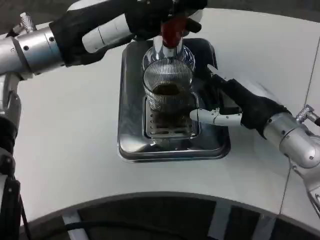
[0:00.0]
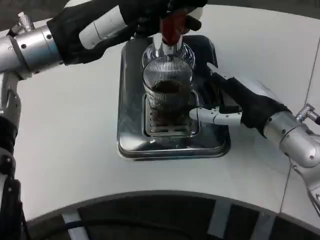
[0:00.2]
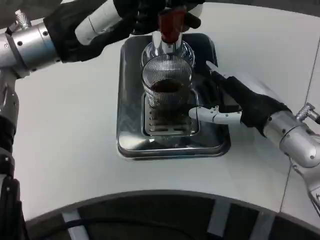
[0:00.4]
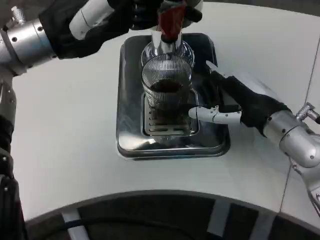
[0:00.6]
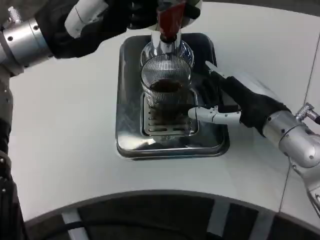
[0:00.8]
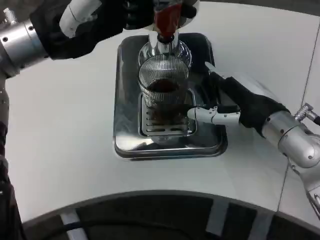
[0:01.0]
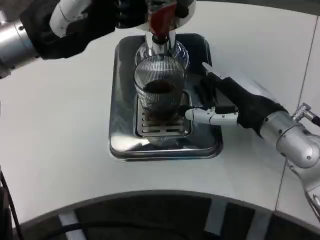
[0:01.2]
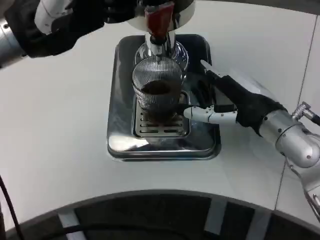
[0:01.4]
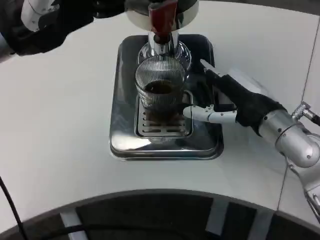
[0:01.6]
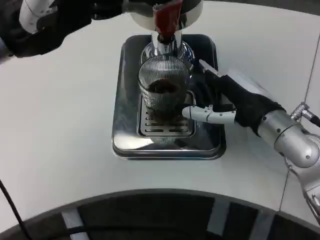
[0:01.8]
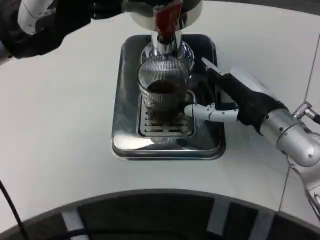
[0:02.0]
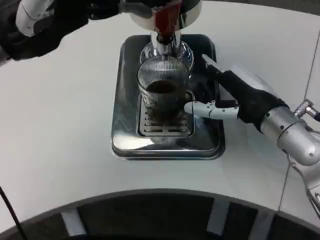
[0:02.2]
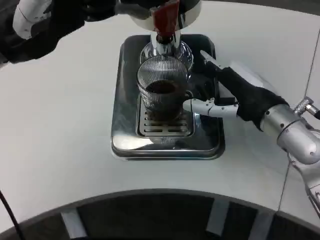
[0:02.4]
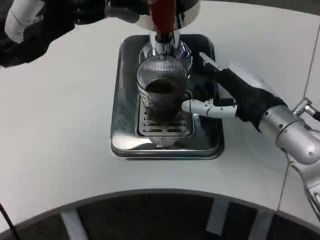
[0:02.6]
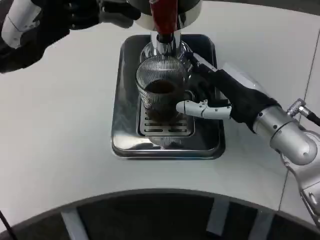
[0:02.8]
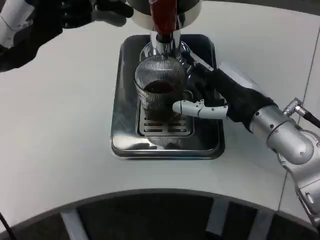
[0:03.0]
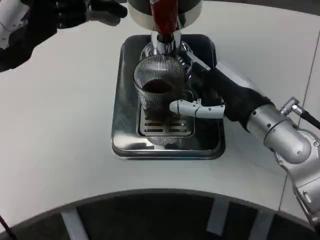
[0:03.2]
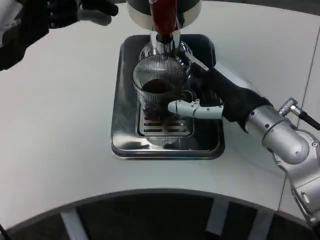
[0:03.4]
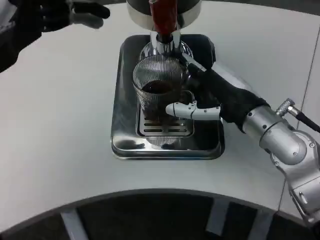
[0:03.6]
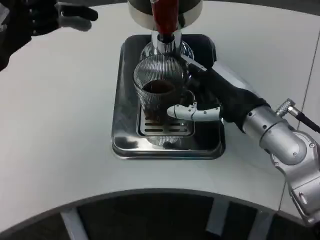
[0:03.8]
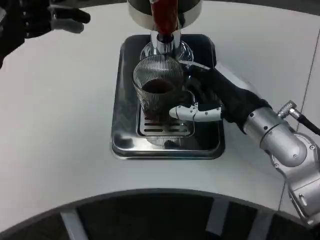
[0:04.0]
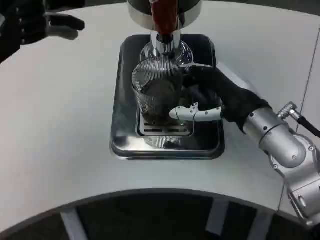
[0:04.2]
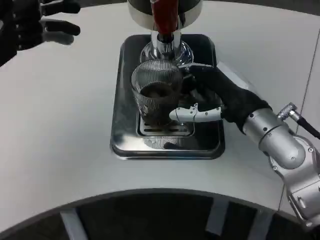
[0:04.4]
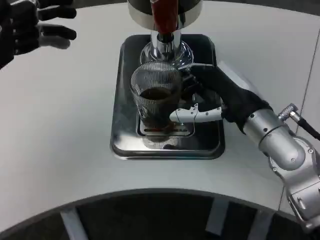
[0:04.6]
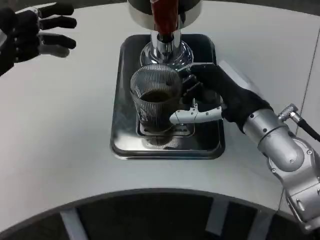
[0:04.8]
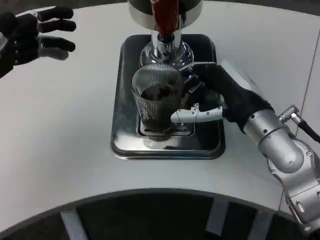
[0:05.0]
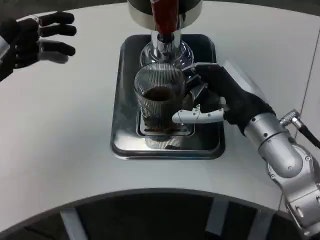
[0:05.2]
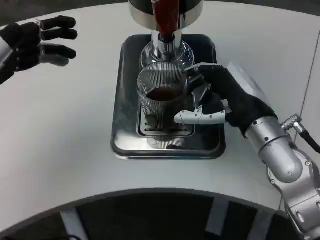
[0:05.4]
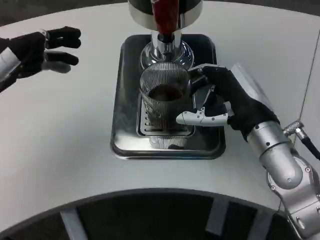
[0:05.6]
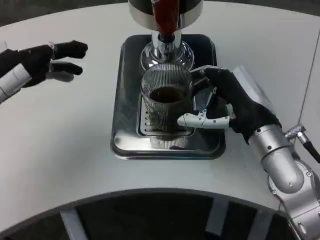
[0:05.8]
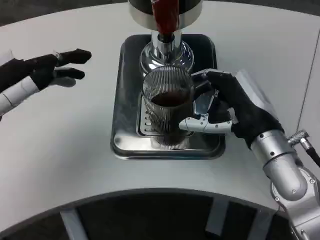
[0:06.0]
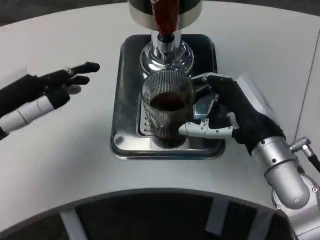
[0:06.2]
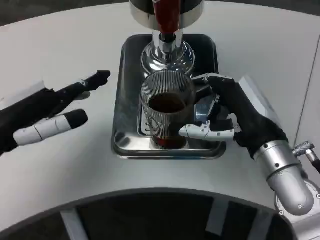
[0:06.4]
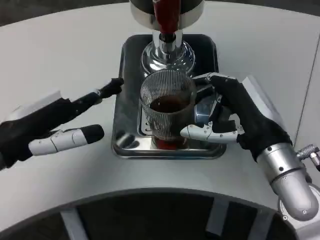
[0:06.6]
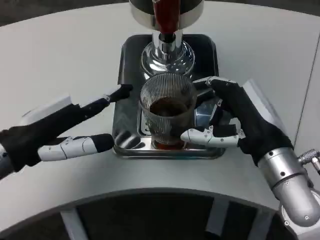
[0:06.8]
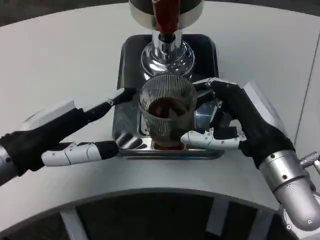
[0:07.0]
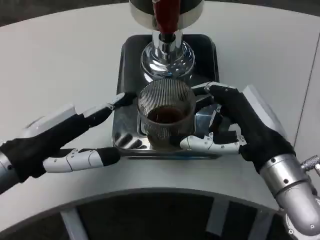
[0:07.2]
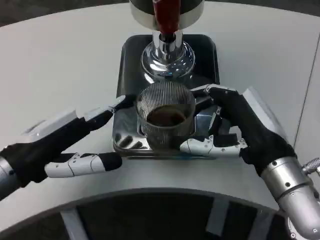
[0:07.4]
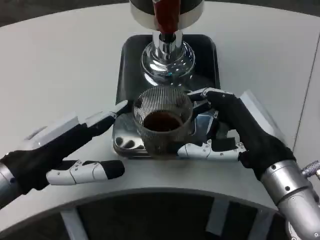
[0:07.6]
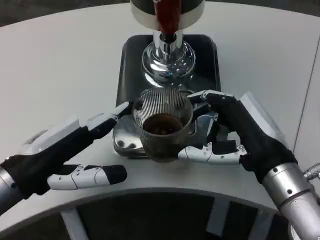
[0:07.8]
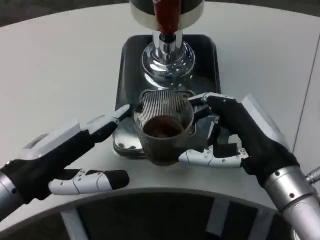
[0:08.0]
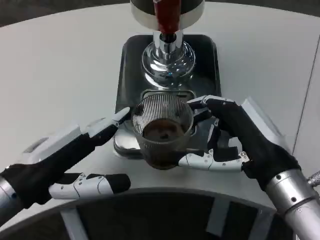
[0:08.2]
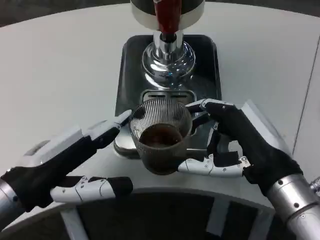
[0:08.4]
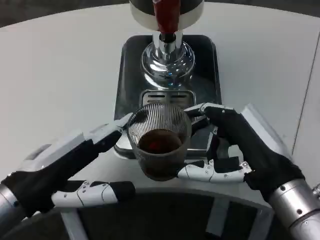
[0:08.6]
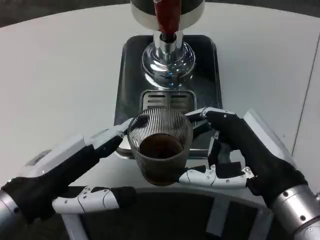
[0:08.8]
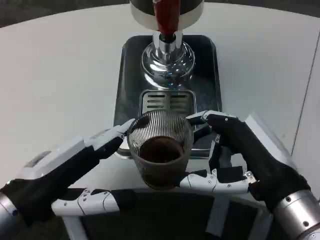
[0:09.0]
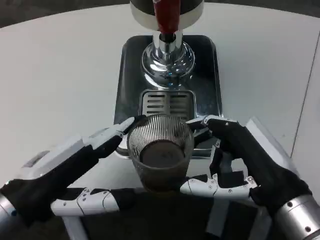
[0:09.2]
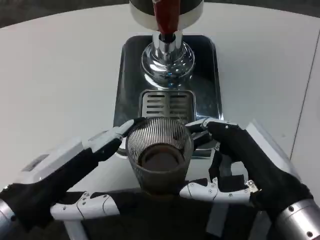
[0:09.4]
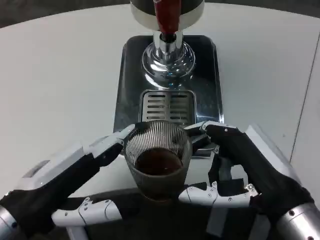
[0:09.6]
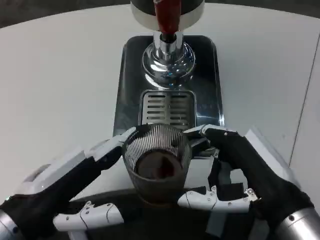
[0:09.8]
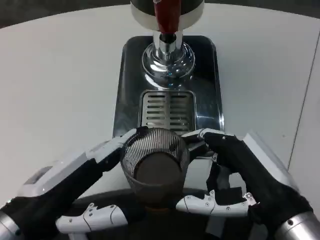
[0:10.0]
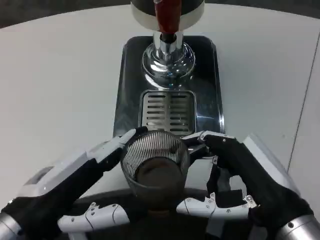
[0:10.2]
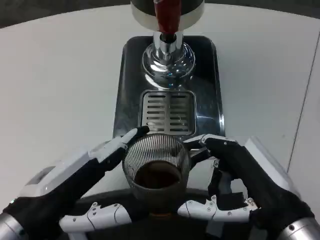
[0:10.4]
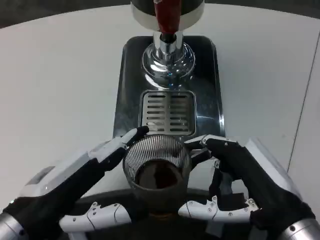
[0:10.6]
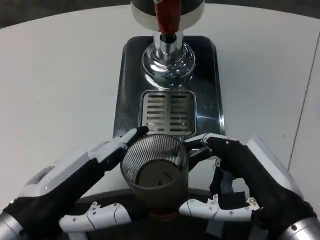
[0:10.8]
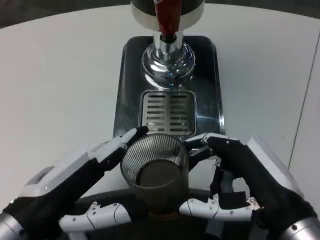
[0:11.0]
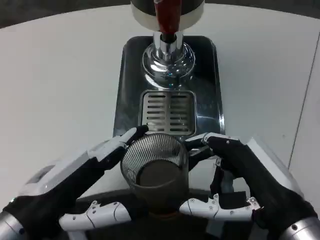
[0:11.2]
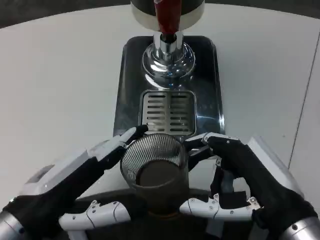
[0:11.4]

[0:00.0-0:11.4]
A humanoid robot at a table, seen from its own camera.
Task of the whole recording: Grasp the cup under the faucet to collect the drink, then remove the cup.
0:02.8 to 0:04.2: The left hand ends up approximately 5 cm from where it was.
0:05.6 to 0:07.2: The left hand travels to the right and downward by roughly 10 cm. Meanwhile the right hand is displaced backward by roughly 5 cm.
0:07.2 to 0:08.6: The left hand moves about 5 cm.
0:10.0 to 0:11.4: Both hands stay put.

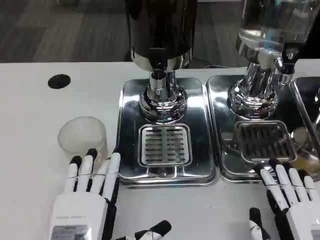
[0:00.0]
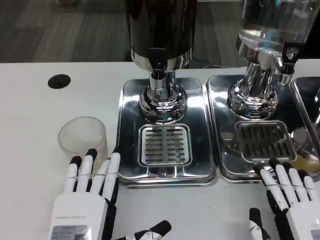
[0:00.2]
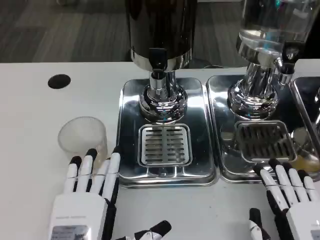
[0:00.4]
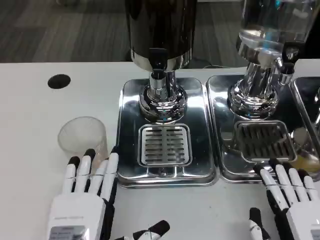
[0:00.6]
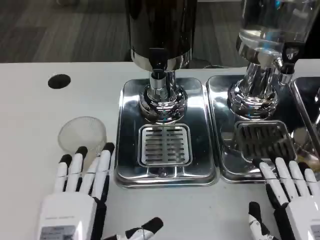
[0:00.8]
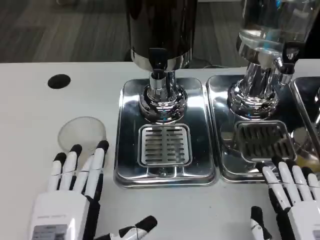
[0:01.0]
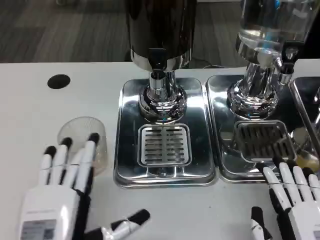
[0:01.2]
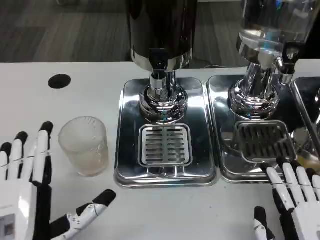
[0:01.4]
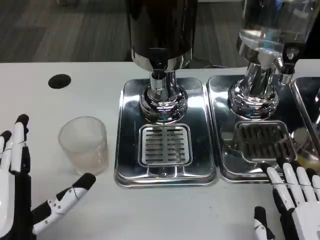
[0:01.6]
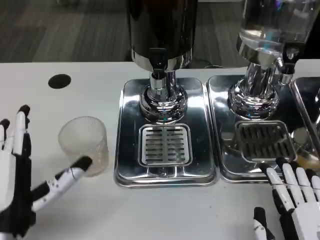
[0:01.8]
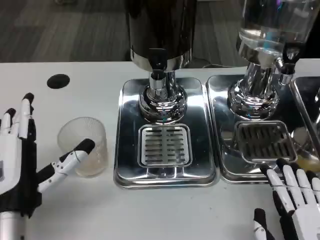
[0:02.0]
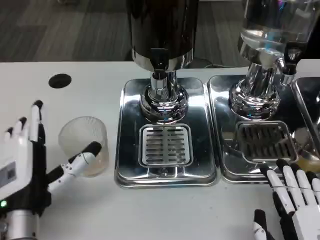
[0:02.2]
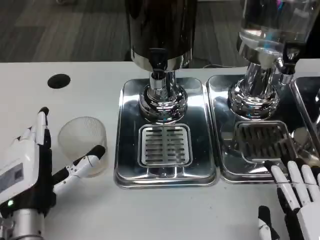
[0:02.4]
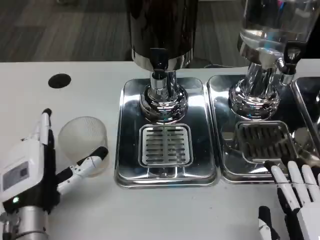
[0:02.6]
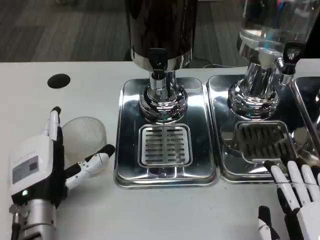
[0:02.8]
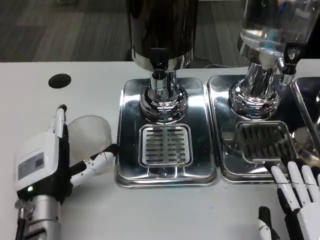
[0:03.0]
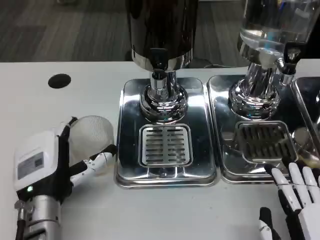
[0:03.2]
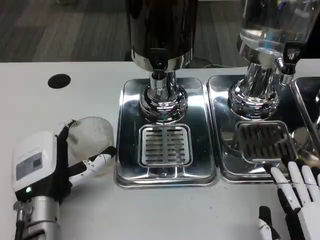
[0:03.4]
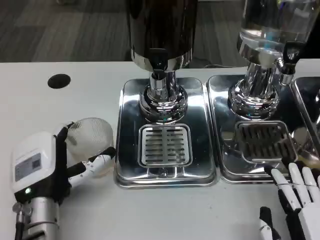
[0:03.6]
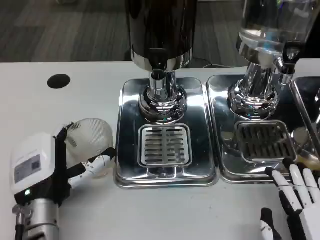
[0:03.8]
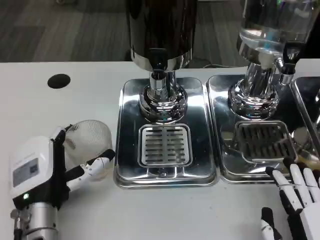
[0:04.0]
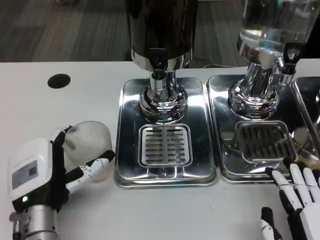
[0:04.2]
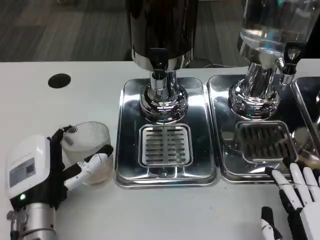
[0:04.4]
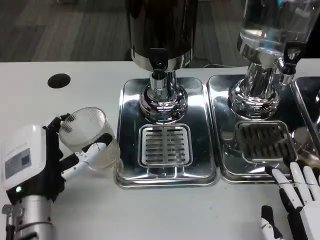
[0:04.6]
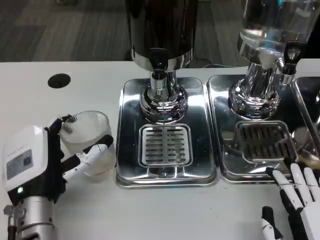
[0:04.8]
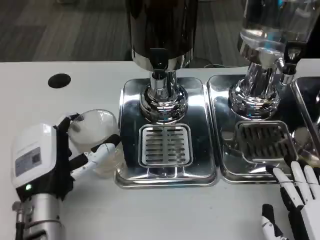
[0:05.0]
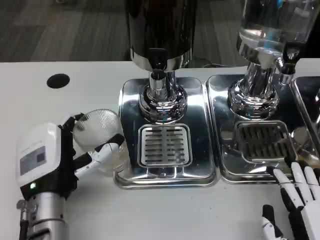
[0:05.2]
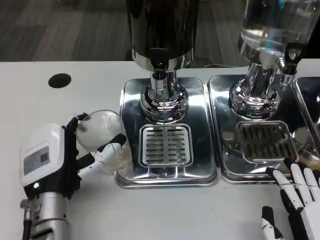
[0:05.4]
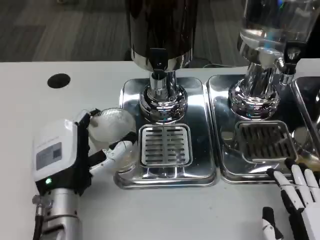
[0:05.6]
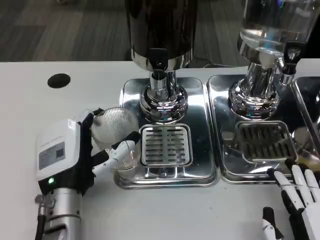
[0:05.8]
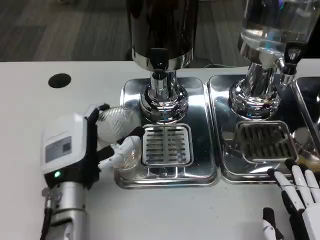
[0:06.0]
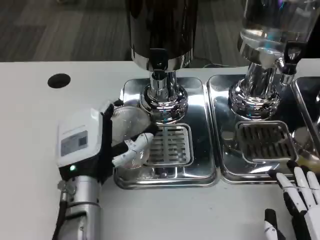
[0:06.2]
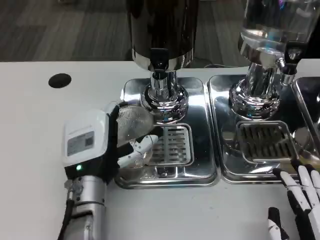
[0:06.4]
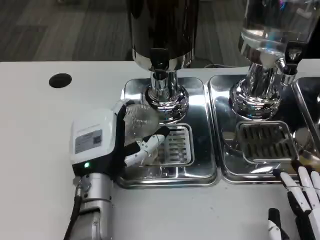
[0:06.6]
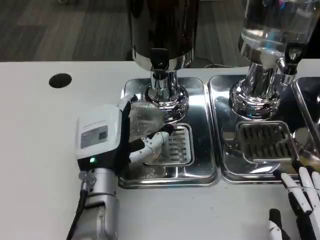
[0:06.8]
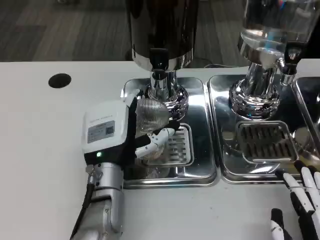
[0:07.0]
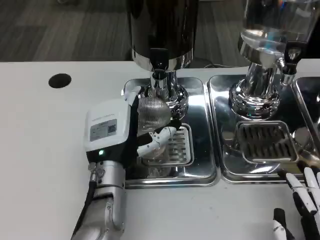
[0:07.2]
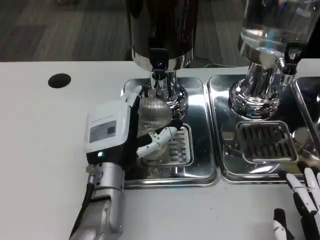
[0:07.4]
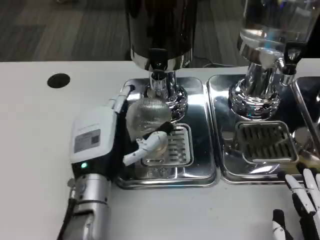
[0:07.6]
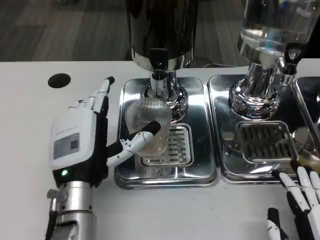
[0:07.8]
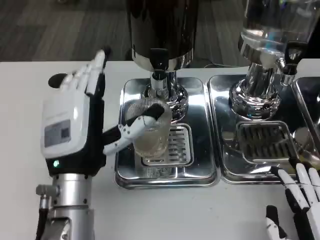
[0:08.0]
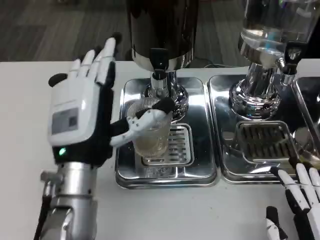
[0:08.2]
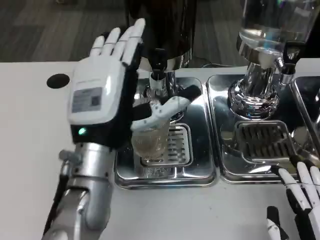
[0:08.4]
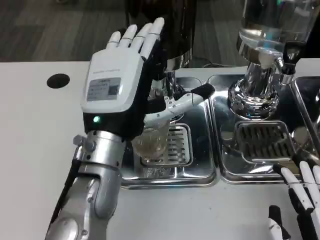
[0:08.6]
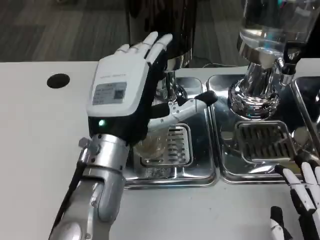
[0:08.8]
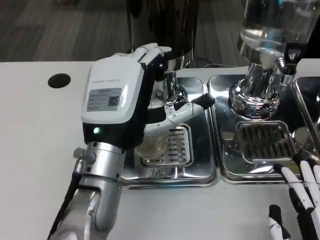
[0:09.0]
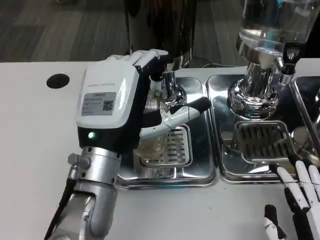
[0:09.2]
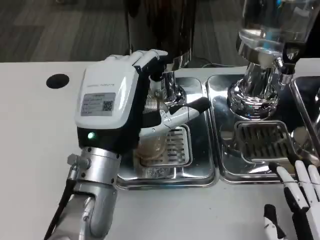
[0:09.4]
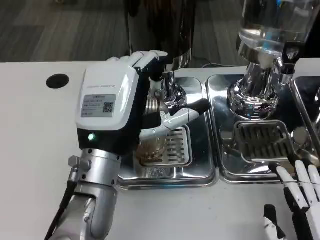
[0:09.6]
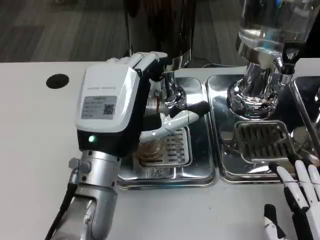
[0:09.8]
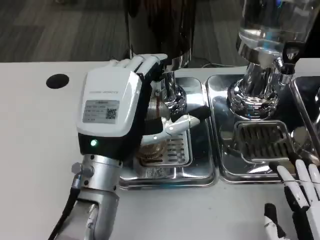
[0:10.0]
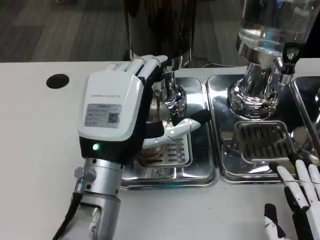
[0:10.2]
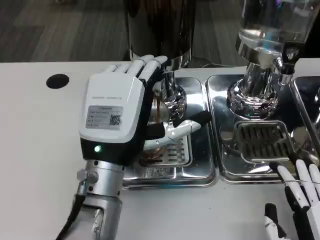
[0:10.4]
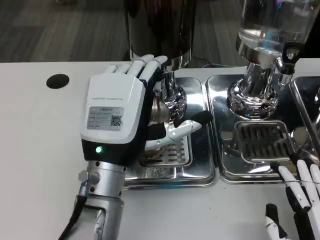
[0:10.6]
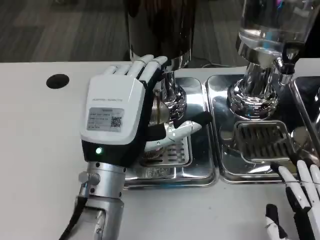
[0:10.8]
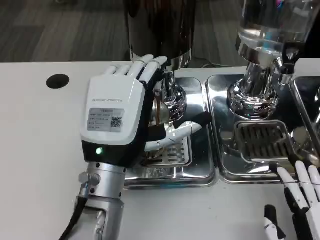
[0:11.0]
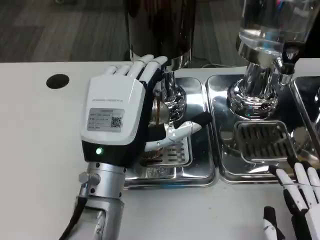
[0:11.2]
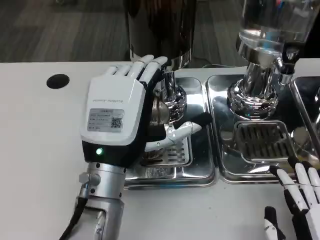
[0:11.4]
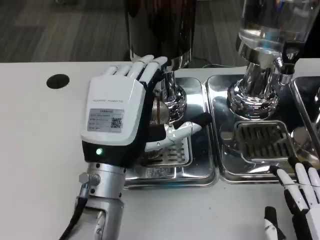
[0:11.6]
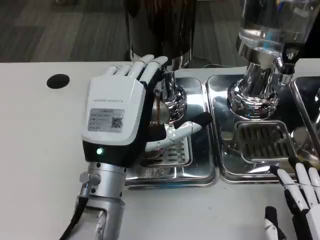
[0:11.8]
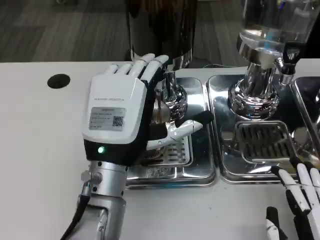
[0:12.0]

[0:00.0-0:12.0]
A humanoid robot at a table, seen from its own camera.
Task of the whole recording: Grasp the cup under the faucet to collect the drink, then remove the cup.
0:00.0 to 0:01.6: The left hand moves to the left, approximately 5 cm.
0:01.6 to 0:03.0: The left hand shifts about 10 cm forward.
0:03.0 to 0:06.0: The hands stay close to where they were, moving slightly.
0:07.6 to 0:09.0: The left hand moves upward, roughly 5 cm.
0:10.4 to 0:12.0: Both hands stay put.
